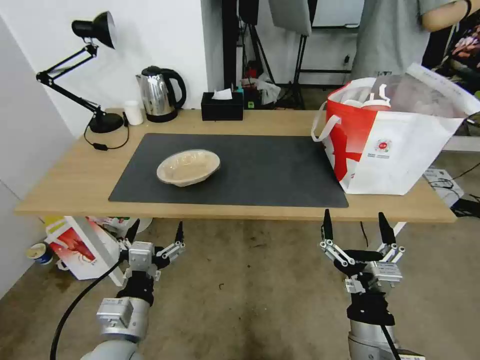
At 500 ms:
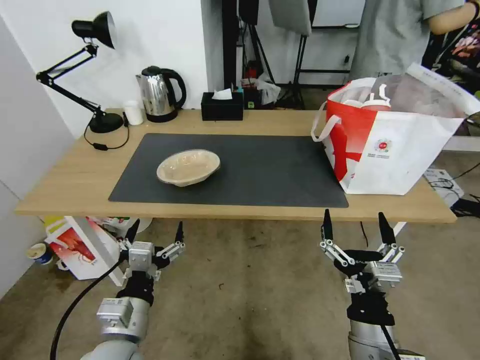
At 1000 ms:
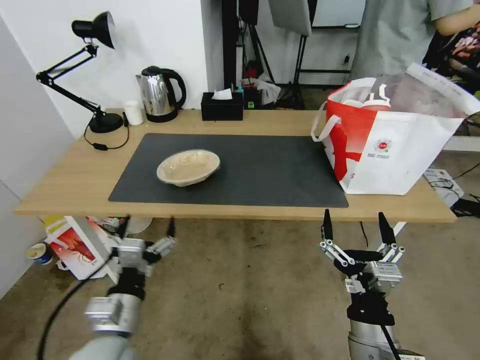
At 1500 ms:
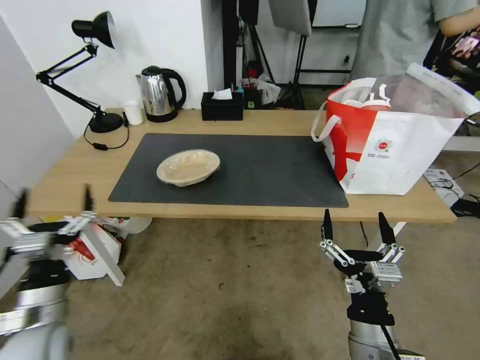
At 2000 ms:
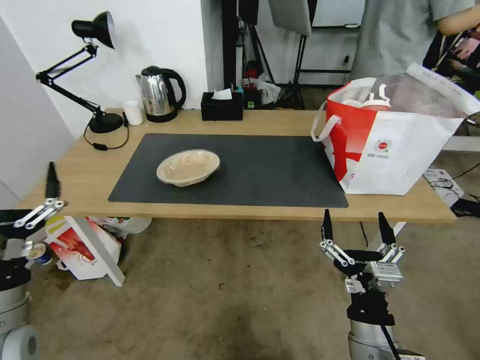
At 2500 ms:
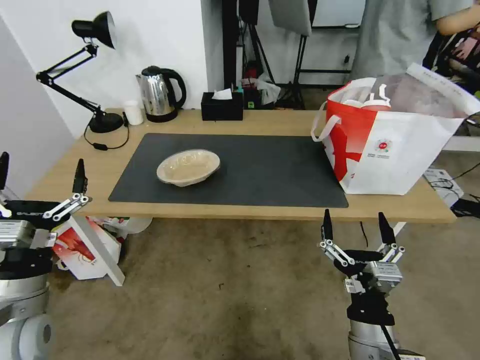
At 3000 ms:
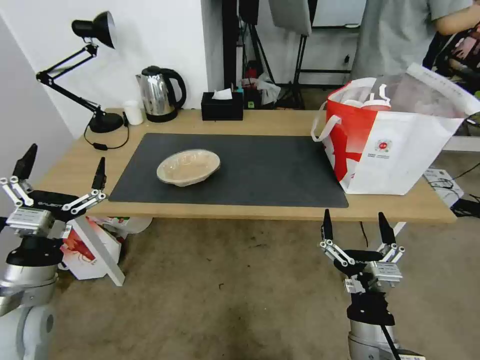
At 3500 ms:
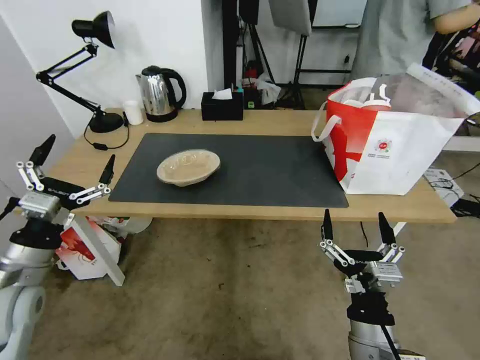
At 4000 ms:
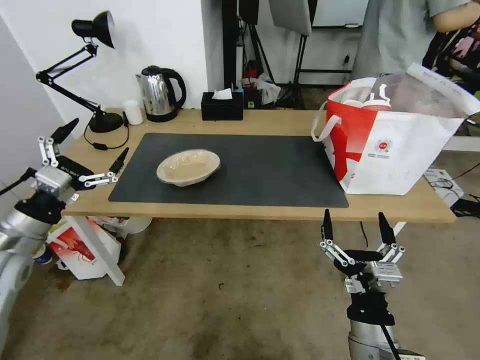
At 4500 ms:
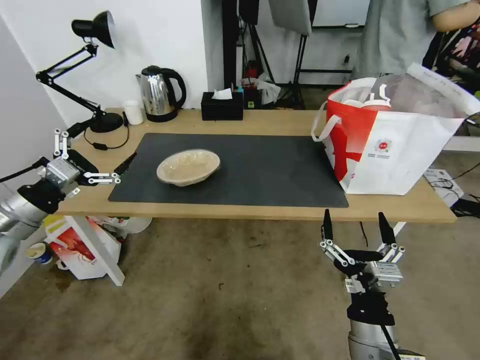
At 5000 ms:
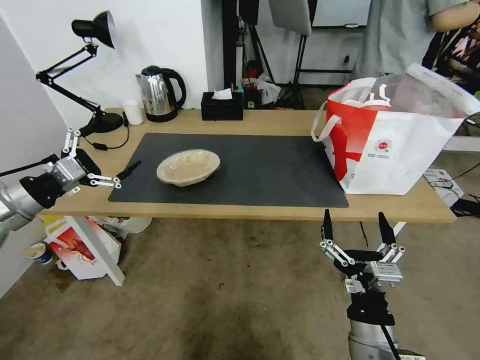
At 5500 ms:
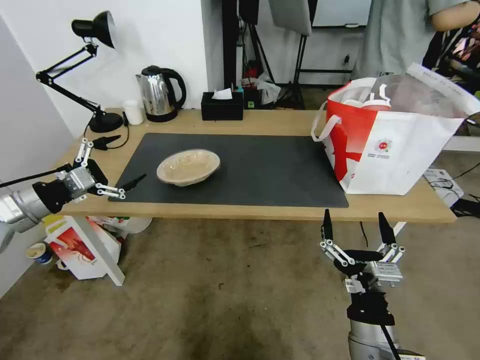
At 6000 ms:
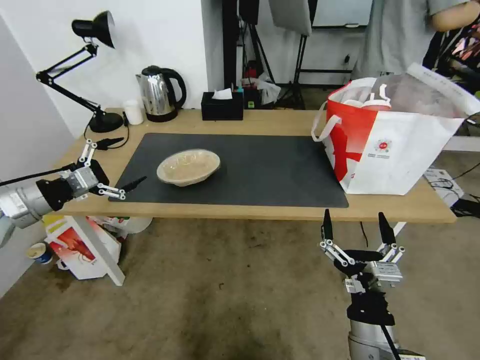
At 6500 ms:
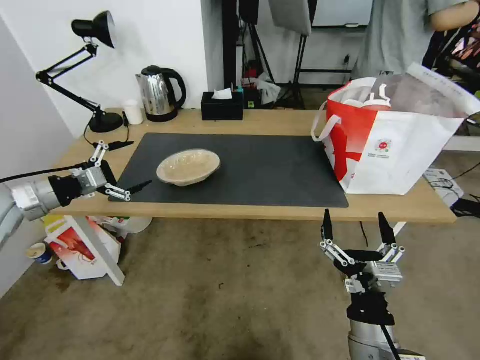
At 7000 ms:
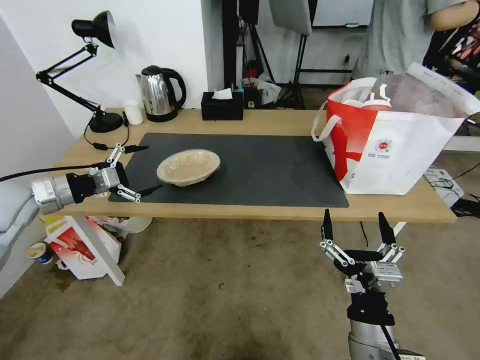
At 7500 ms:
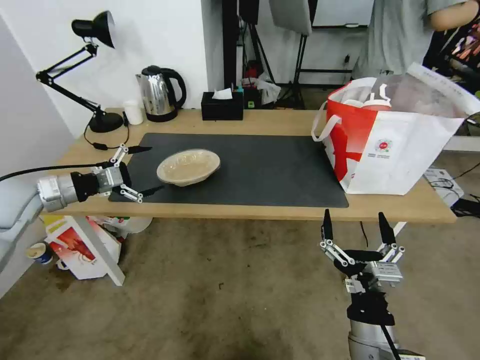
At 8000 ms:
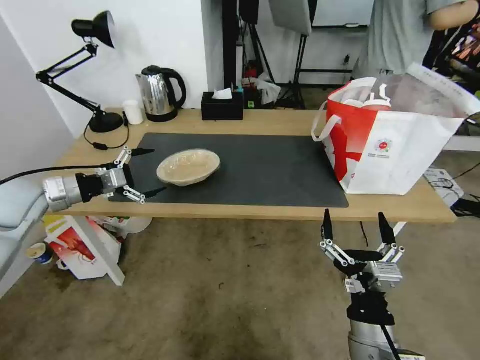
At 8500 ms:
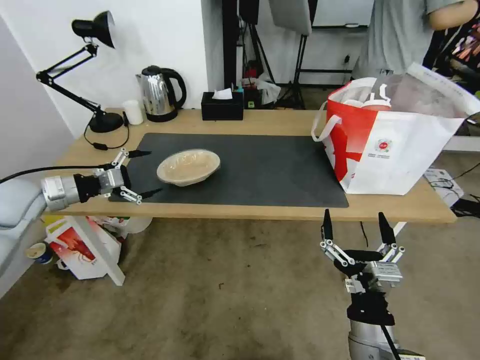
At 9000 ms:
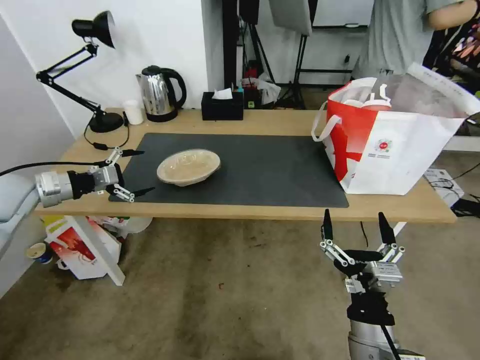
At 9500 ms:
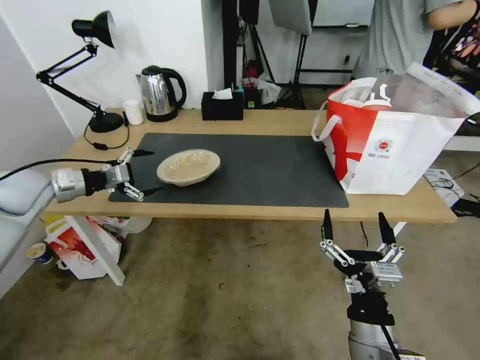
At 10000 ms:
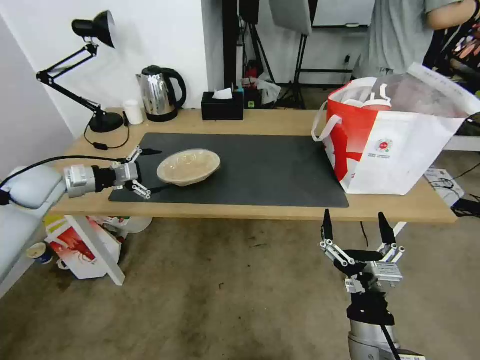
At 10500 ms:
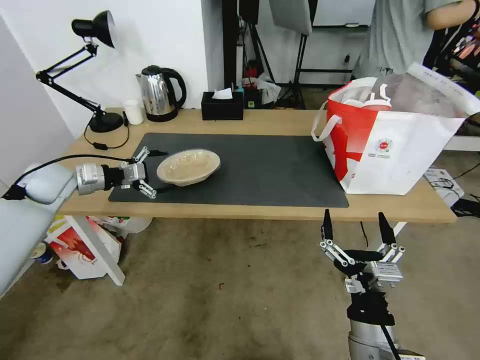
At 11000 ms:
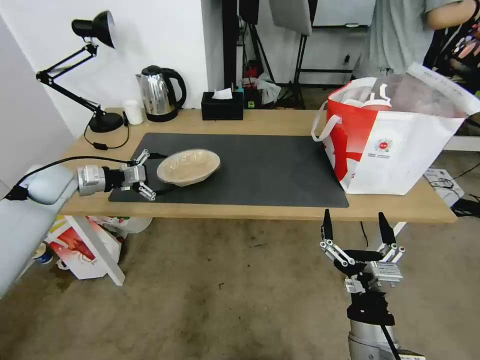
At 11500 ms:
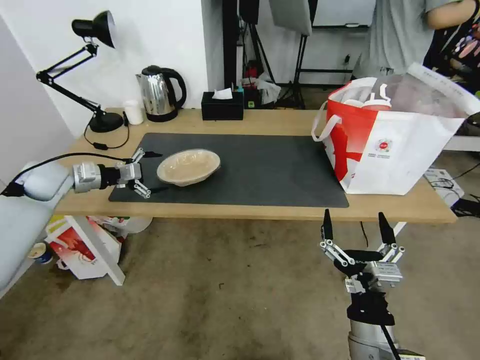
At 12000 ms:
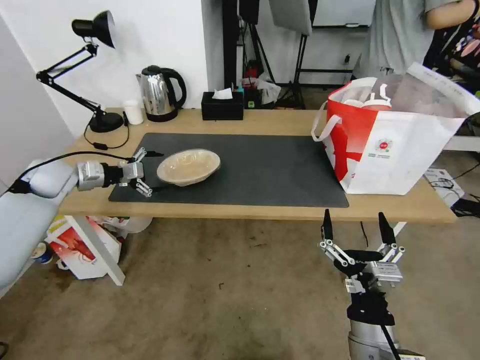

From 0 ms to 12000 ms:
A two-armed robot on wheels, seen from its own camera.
Task of the whole recording: Pick up the trash from the table and place it into the takeout bag.
From 0 ms to 2000 ms: The left gripper shifts some 15 cm to the left.
From 2000 ms to 4000 ms: The left gripper travels forward by approximately 10 cm.
From 4000 ms to 6000 ms: The left gripper goes about 10 cm forward and to the left.
From 6000 ms to 8000 ms: The left gripper travels forward by approximately 5 cm.
From 8000 ms to 10000 ms: The left gripper goes roughly 5 cm forward.
From 10000 ms to 12000 ms: The grippers move only a little.

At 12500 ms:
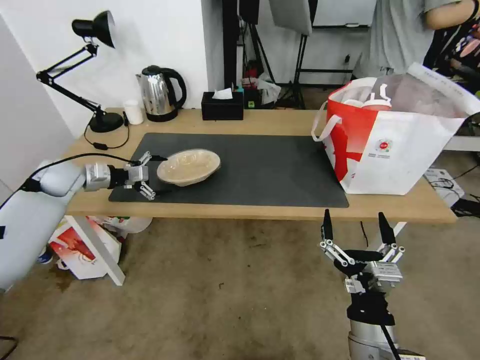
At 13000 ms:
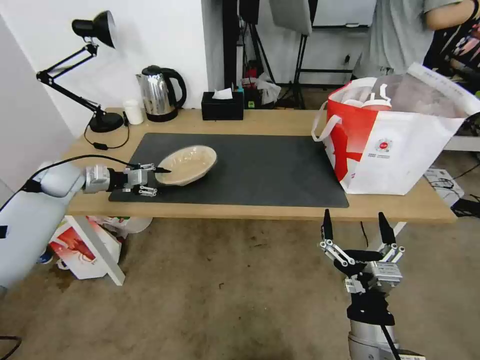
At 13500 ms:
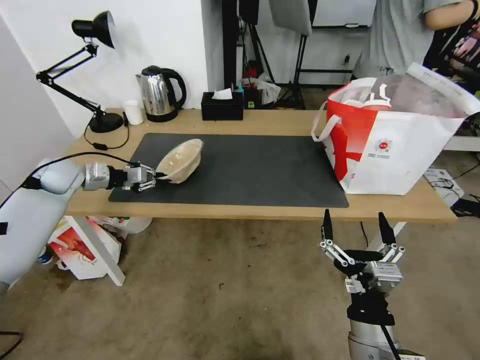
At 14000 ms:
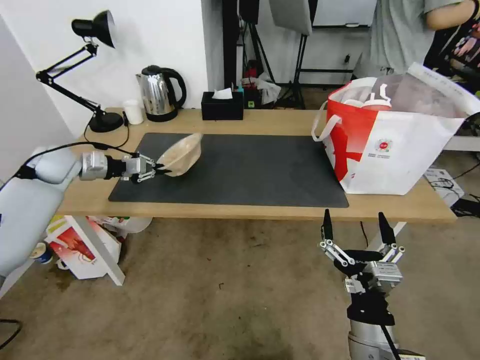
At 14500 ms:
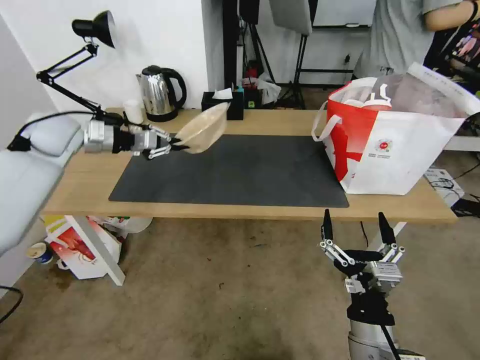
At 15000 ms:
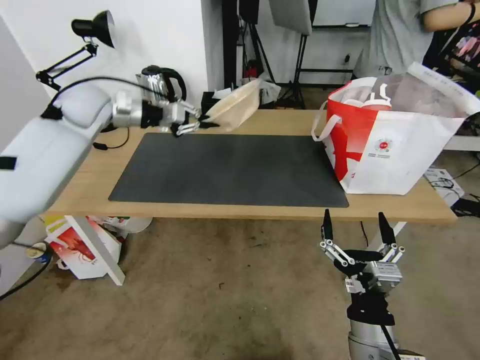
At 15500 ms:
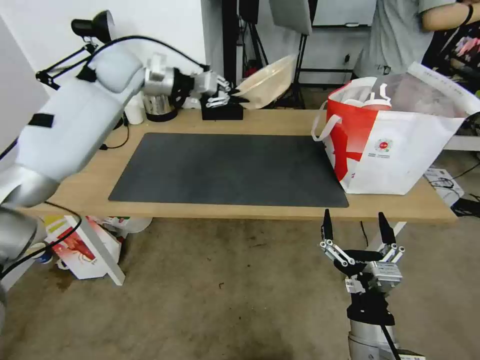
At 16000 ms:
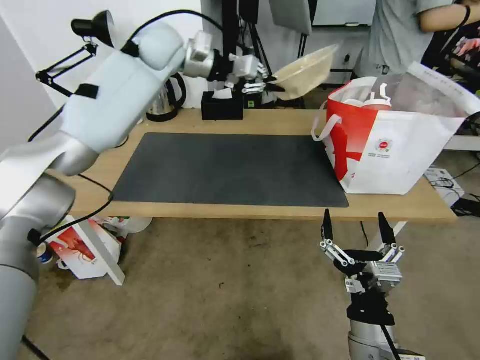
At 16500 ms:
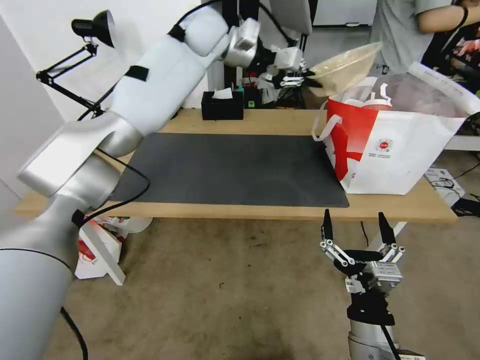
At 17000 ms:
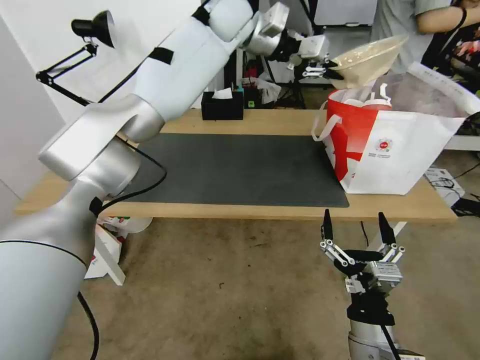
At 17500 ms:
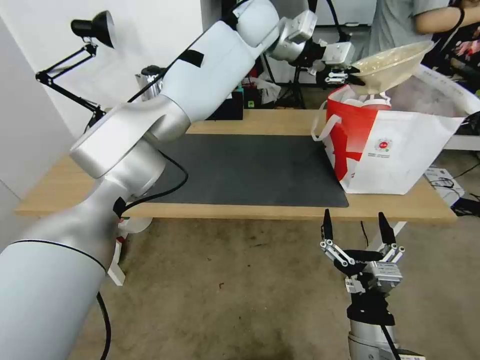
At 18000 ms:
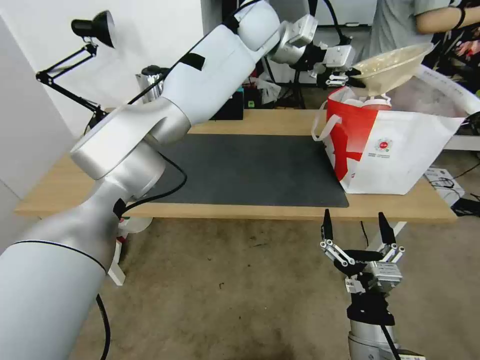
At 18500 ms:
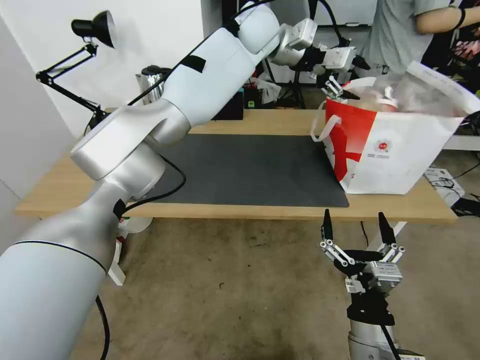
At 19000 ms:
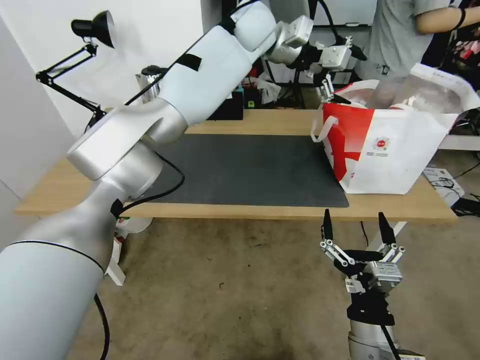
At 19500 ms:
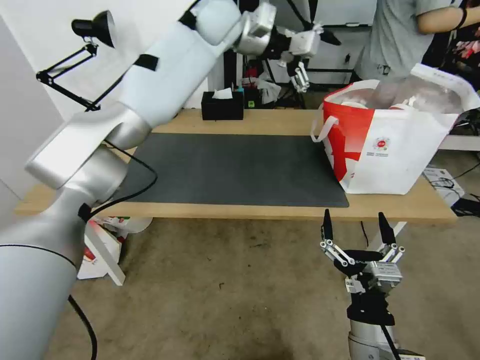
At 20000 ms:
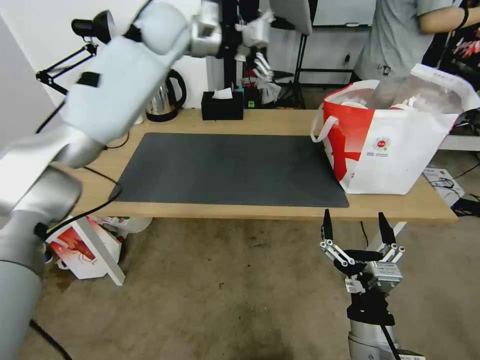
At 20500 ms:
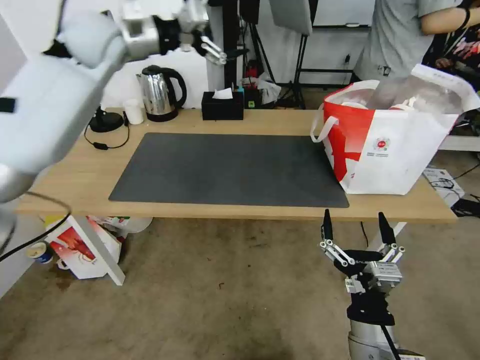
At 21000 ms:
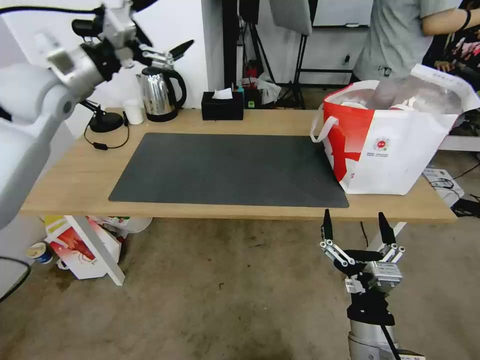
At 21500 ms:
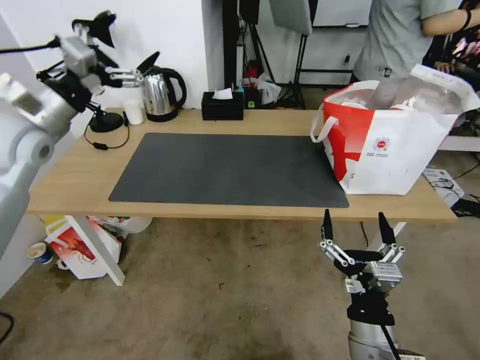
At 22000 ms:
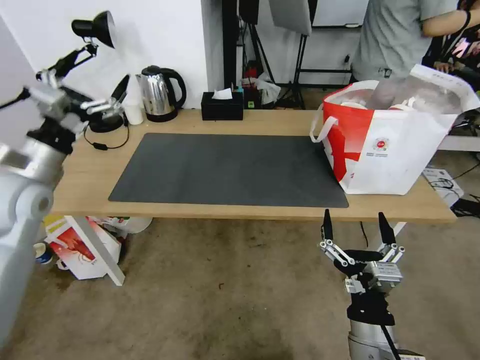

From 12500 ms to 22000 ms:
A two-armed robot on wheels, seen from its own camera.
Task of the whole recording: Pick up the trash from the table and place it into the takeout bag.
From 12500 ms to 14500 ms: The left gripper goes about 10 cm upward, and closes its fingers.
From 14500 ms to 16500 ms: The left gripper heads to the right, upward and forward, covering approximately 40 cm.
From 16500 ms to 18000 ms: The left gripper goes roughly 10 cm to the right.
From 18000 ms to 20000 ms: The left gripper heads to the left, covering approximately 20 cm, and opens up.
From 20000 ms to 22000 ms: The left gripper moves backward, to the left and downward, roughly 40 cm.

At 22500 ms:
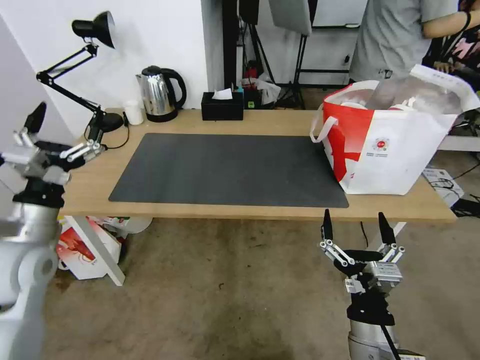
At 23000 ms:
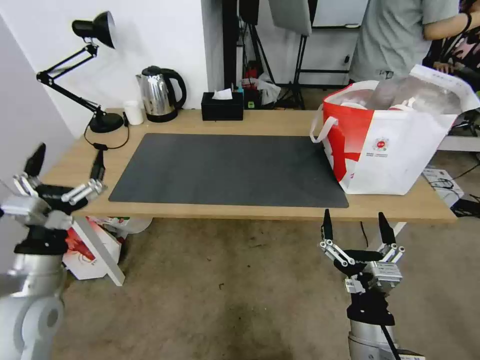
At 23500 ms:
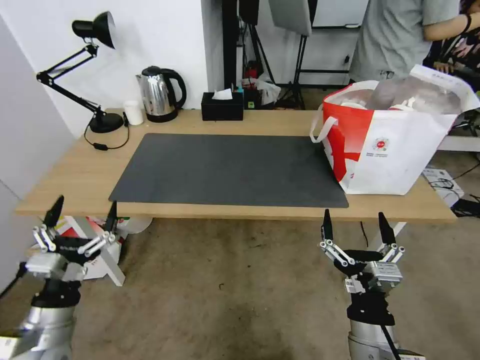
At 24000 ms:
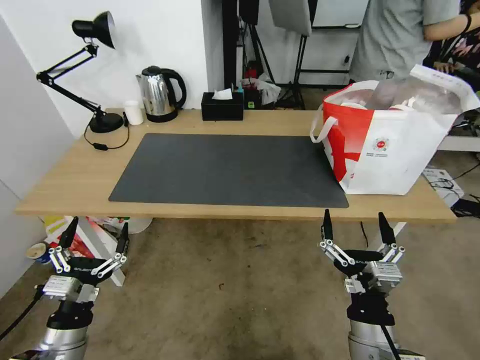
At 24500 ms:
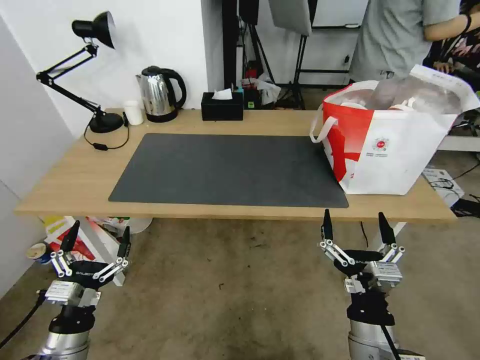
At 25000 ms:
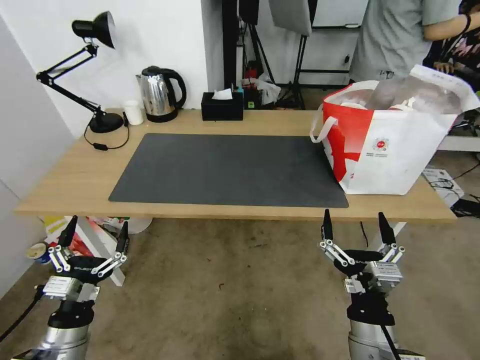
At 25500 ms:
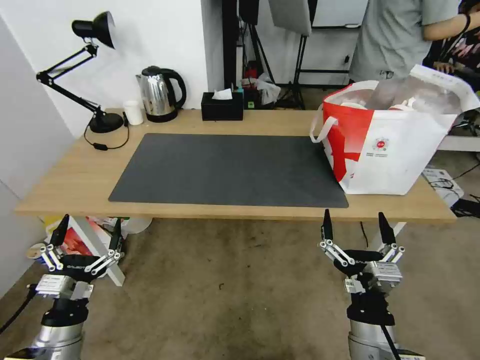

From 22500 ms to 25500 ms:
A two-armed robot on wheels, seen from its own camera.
Task of the whole recording: Pick up the trash from the table and place it into the takeout bag.
From 22500 ms to 24000 ms: The left gripper shifts roughly 20 cm downward and backward.
From 24000 ms to 25500 ms: Both grippers stay put.

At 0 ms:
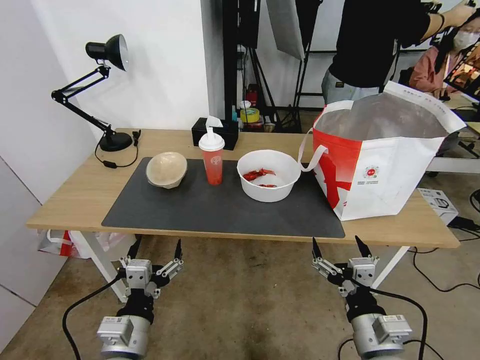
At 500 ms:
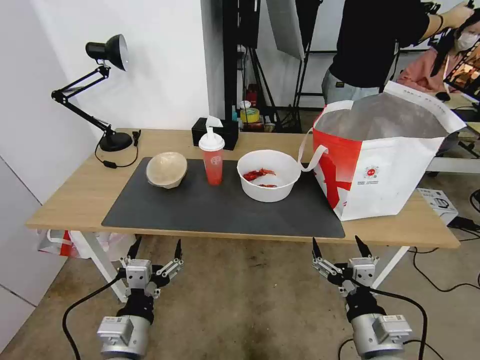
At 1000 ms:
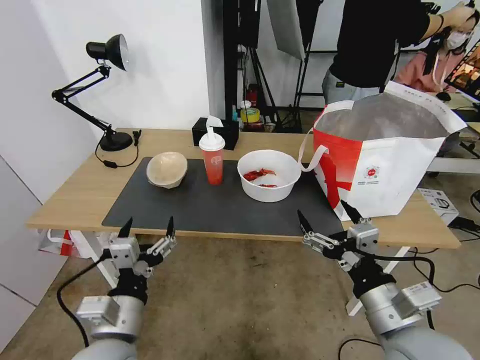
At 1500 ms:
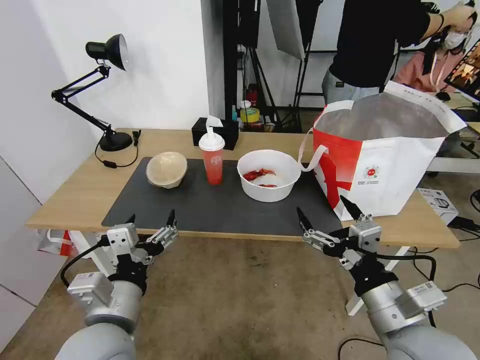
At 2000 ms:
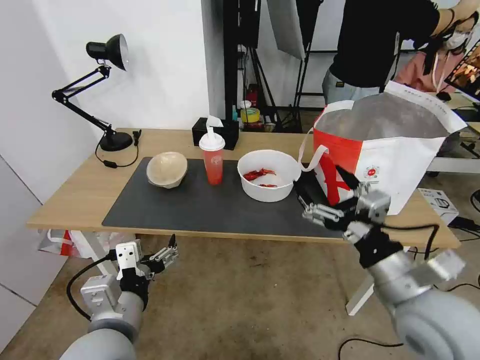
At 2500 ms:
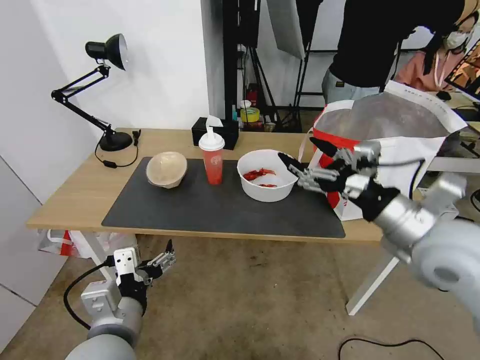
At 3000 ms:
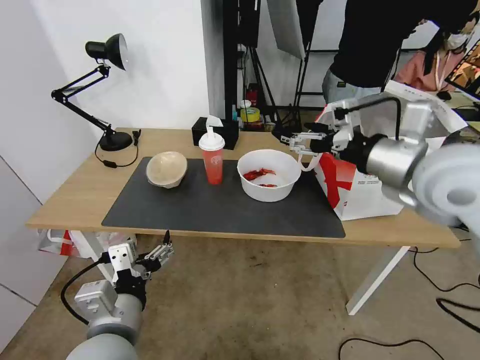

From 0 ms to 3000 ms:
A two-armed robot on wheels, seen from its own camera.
Task of the whole recording: Pick up the trash from the table and place it into the takeout bag.
From 1500 ms to 3000 ms: The right gripper moves upward and forward, about 25 cm.
